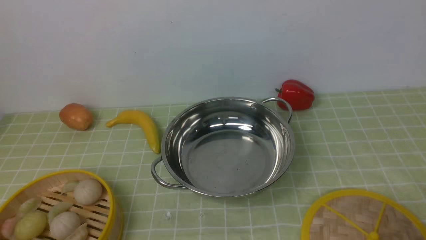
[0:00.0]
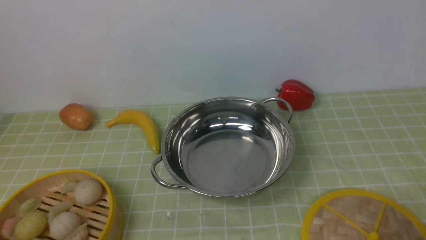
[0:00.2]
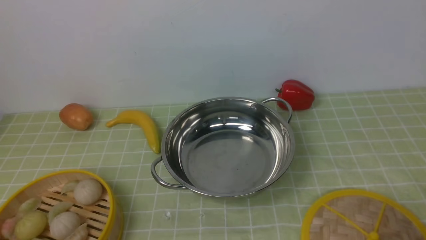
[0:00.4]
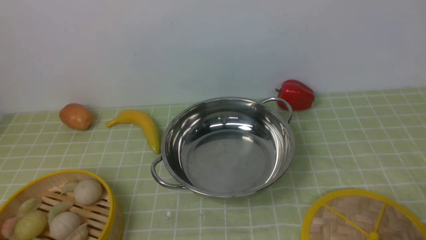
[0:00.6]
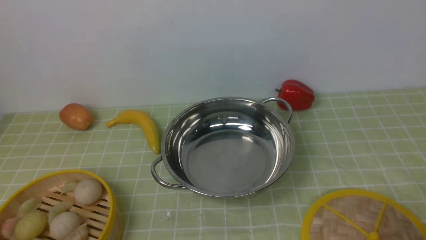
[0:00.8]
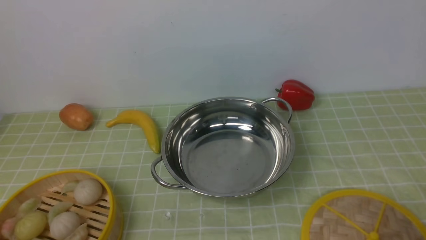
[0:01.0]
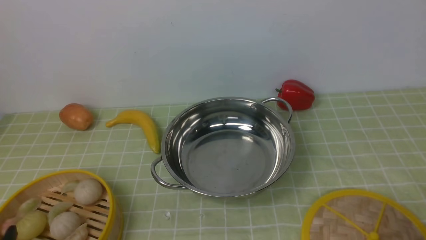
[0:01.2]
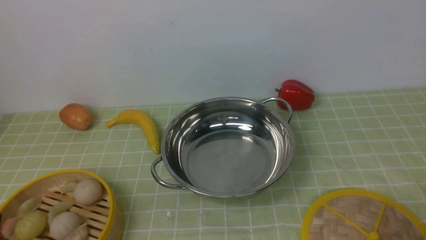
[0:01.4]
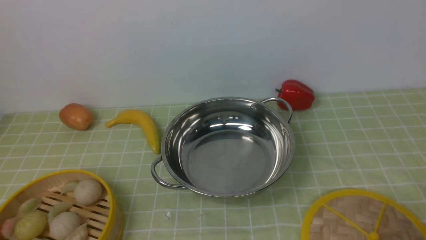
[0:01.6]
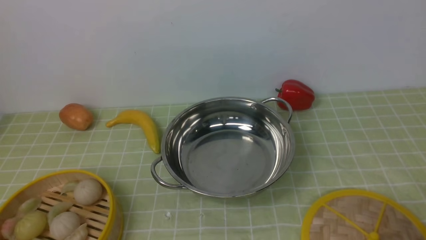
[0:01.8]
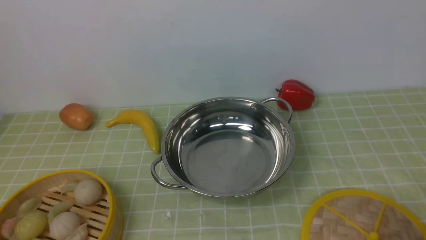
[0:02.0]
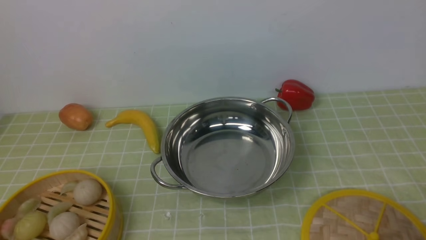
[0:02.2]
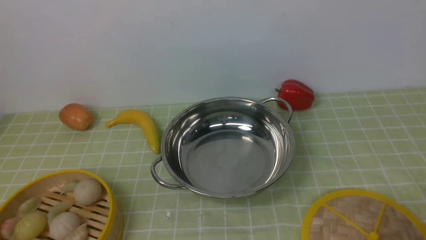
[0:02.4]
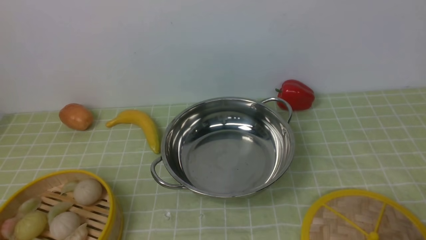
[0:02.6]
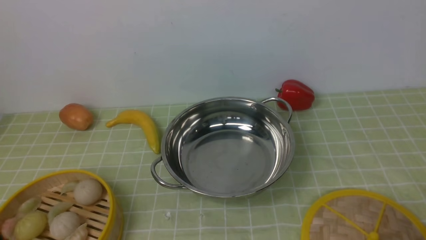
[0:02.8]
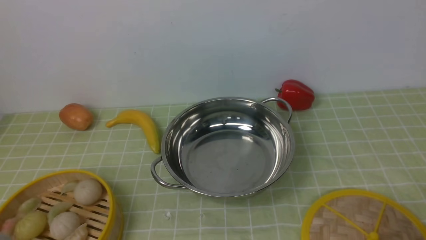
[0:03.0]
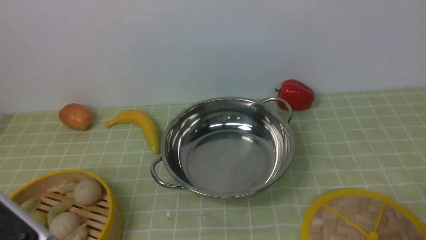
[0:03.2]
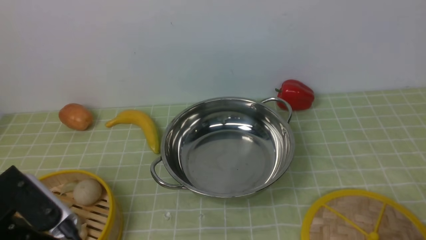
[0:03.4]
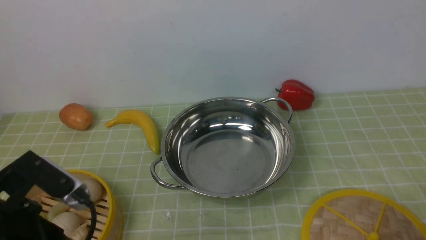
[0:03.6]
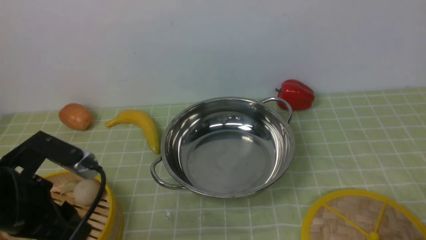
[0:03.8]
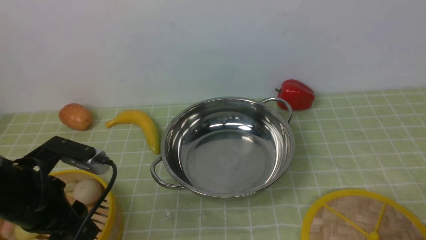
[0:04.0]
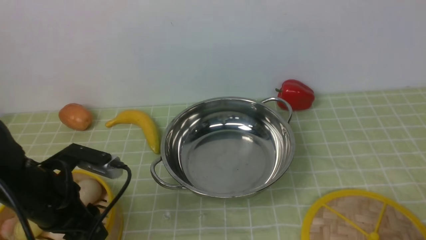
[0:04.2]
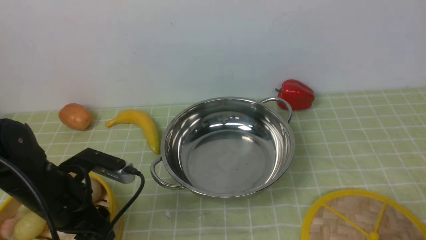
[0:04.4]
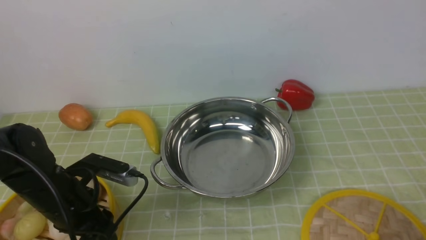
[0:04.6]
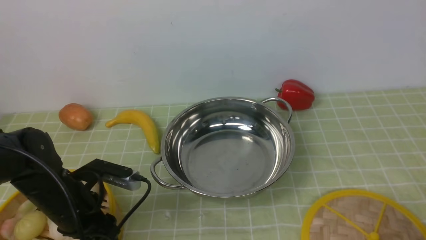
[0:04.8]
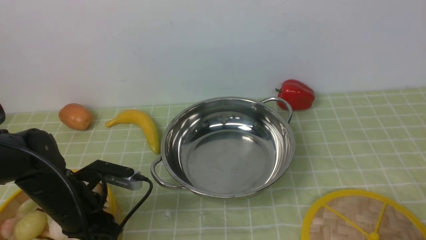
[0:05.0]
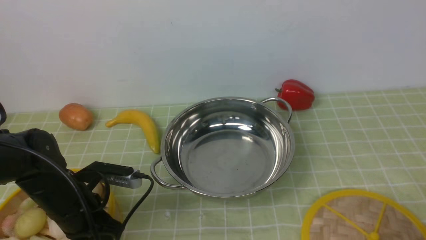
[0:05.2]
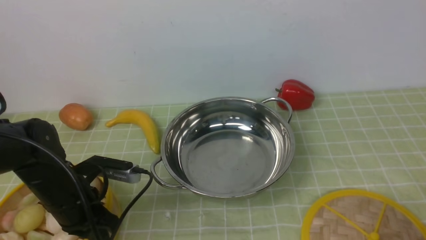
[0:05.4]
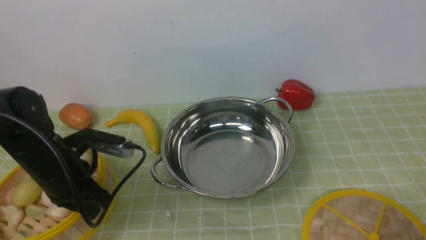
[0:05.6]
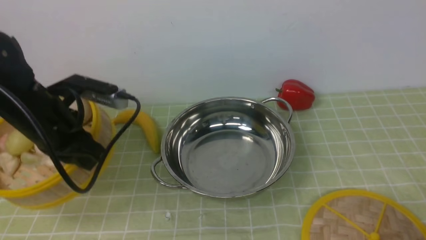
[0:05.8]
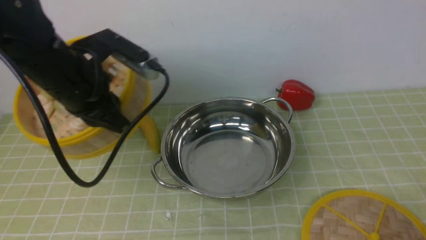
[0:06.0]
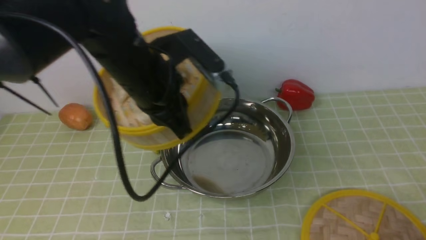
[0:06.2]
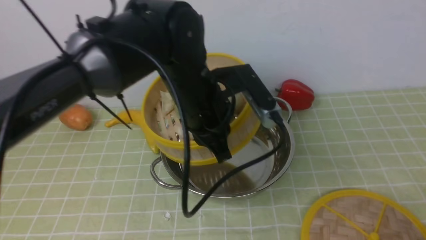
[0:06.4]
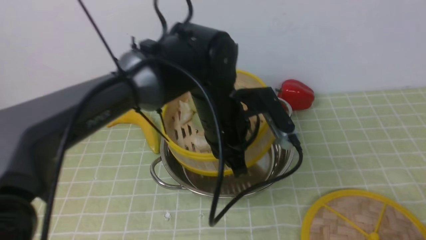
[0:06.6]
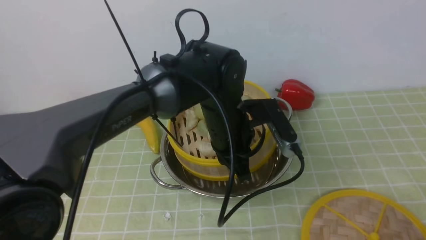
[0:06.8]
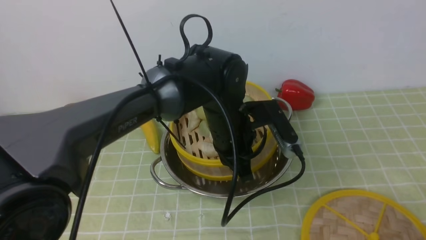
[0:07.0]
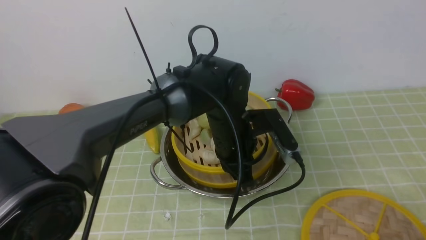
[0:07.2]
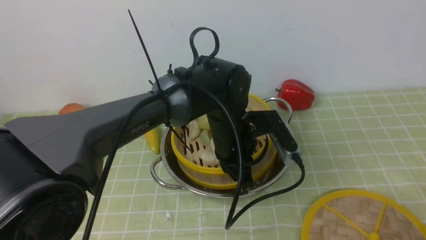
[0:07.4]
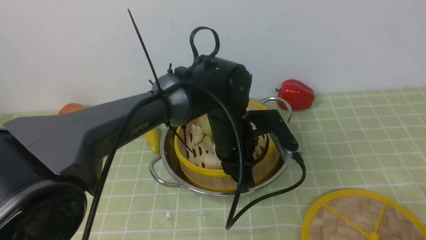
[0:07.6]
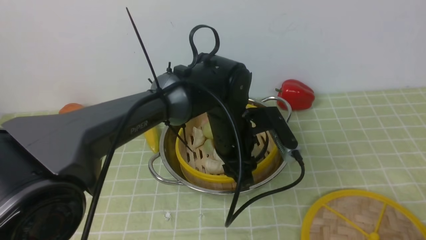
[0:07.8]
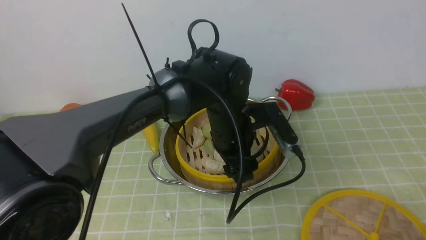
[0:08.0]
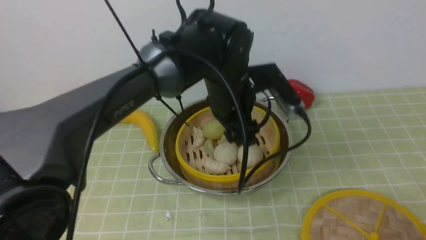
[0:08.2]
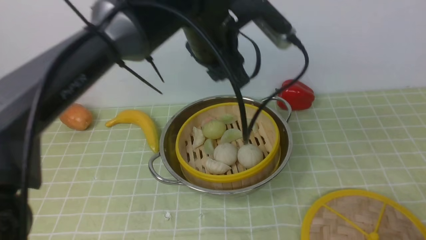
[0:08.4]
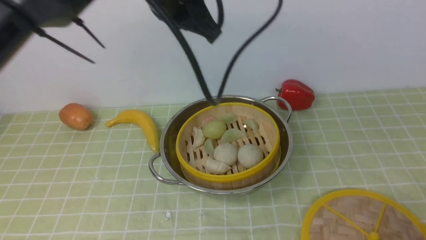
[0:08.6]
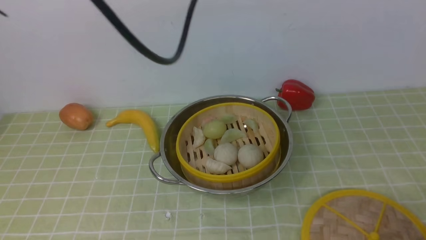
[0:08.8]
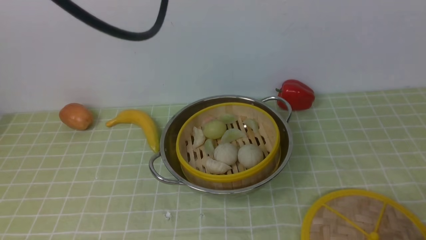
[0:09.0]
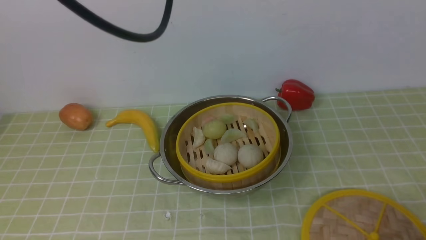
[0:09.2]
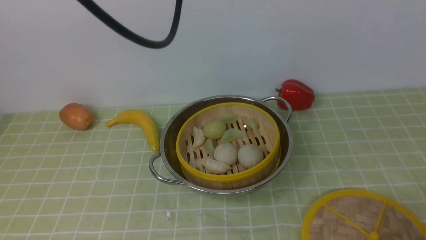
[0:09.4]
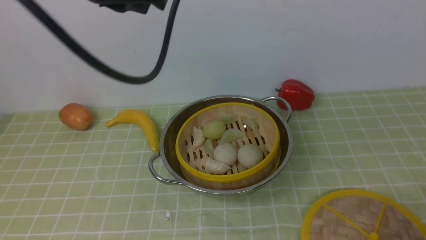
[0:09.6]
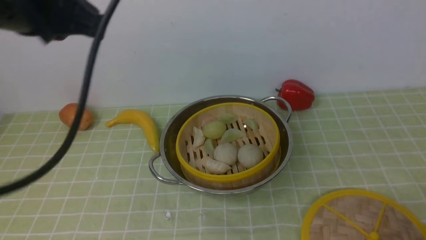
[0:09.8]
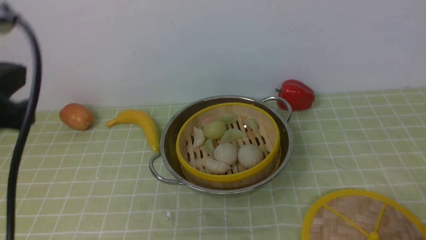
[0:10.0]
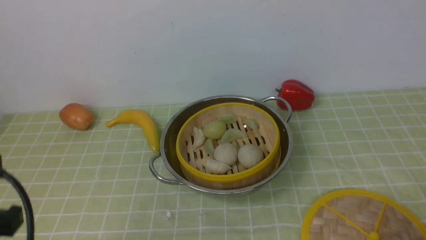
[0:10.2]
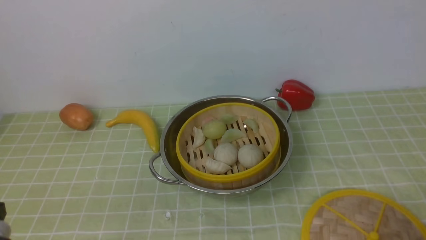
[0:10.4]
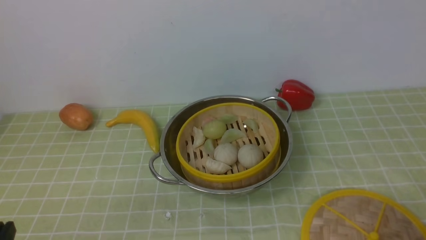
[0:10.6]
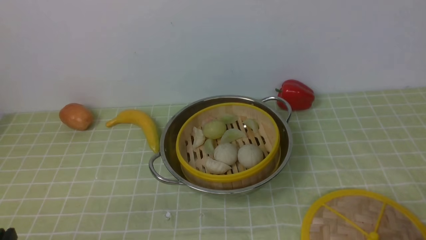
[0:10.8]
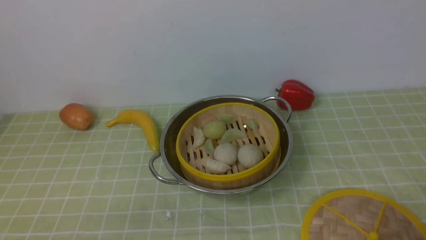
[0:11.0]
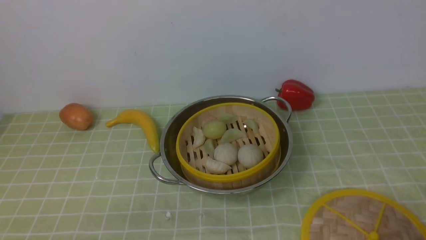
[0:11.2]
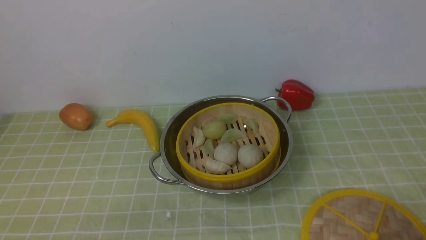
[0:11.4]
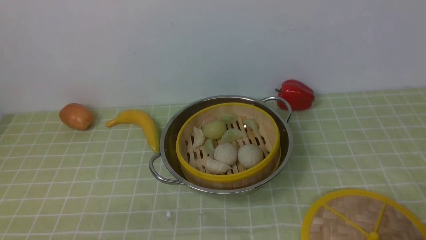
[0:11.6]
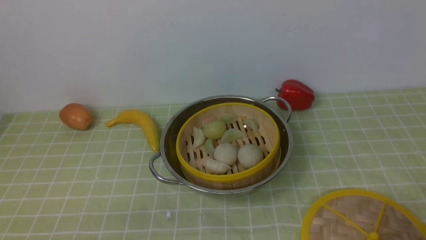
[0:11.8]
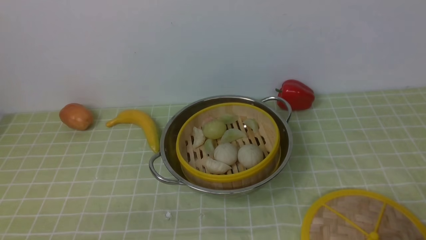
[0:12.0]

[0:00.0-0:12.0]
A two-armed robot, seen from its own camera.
Task of the whole recording: place the steamer in the pot on the green tablecloth, and put the lid on the steamer.
Step, 0:00.0 to 0:05.8: use the left arm to lift the steamer closest to it.
Step, 0:06.0 to 0:08.4: use the left arm to put the steamer into the iron steamer pot in the middle.
0:03.0 to 0:04.4: The left gripper is displaced forward and downward by approximately 20 cm, and opens up.
0:04.4 to 0:06.0: The left gripper heads upward, forward and to the right, covering approximately 15 cm, and closes up.
0:06.0 to 0:07.6: The left gripper heads to the right and downward, covering roughly 20 cm, and opens.
0:07.6 to 0:09.0: The left gripper moves upward and to the left, some 30 cm, and closes up.
0:09.0 to 0:10.4: The left gripper heads downward, backward and to the left, covering approximately 35 cm.

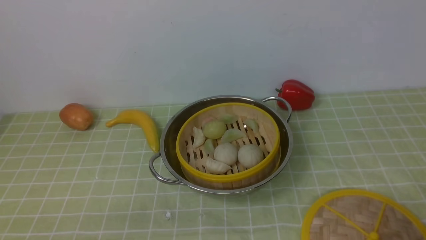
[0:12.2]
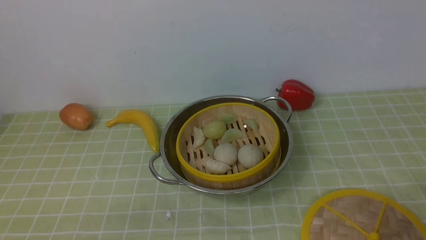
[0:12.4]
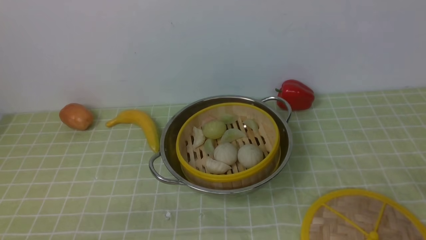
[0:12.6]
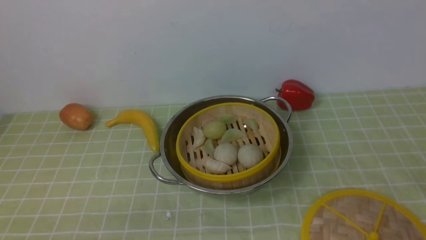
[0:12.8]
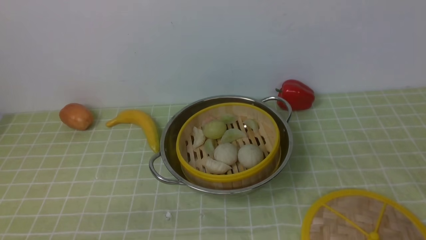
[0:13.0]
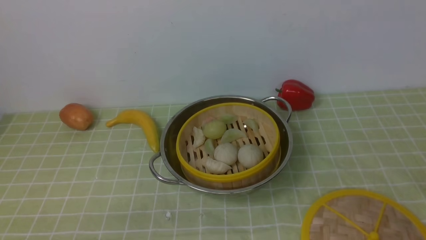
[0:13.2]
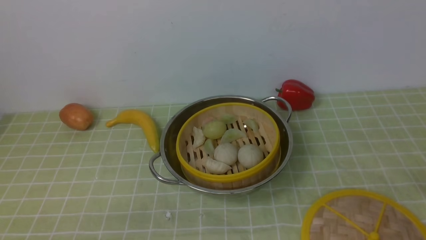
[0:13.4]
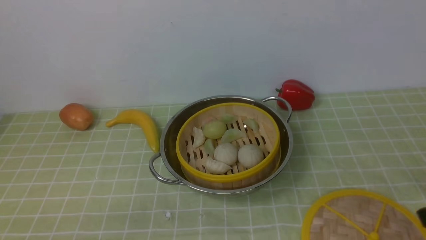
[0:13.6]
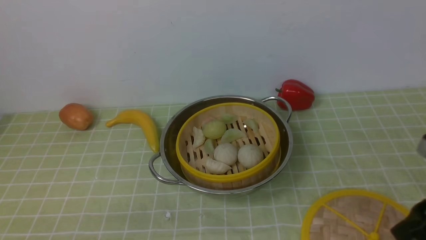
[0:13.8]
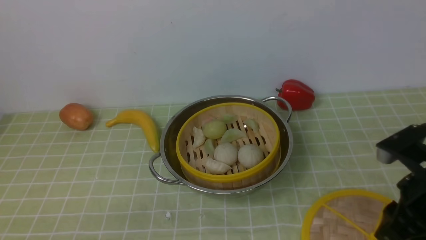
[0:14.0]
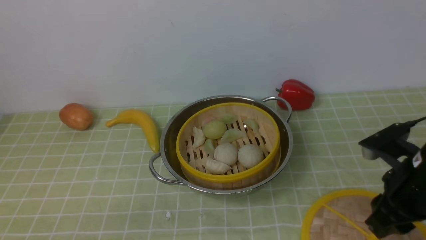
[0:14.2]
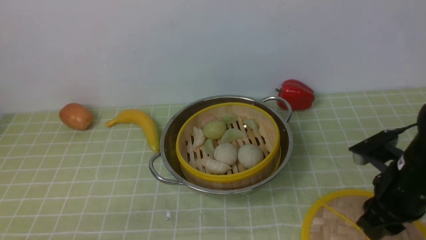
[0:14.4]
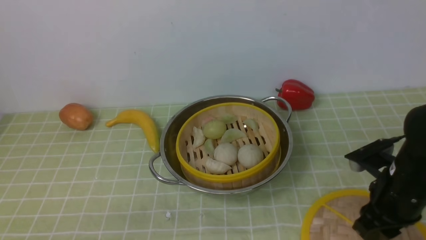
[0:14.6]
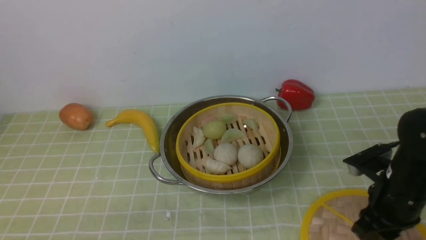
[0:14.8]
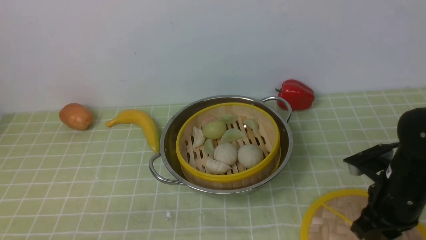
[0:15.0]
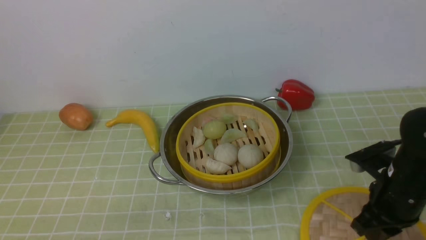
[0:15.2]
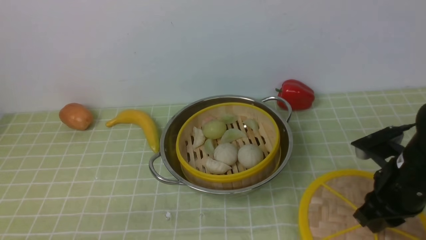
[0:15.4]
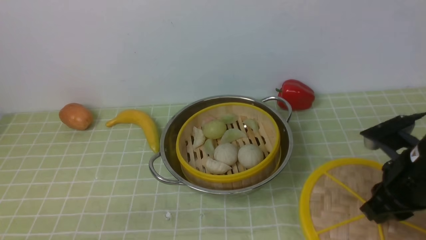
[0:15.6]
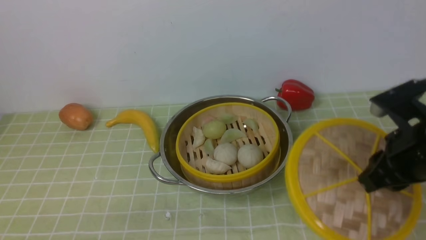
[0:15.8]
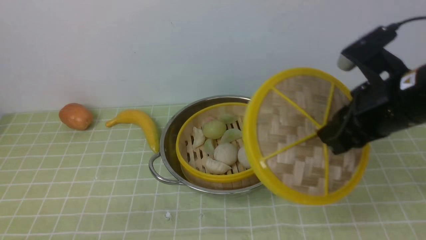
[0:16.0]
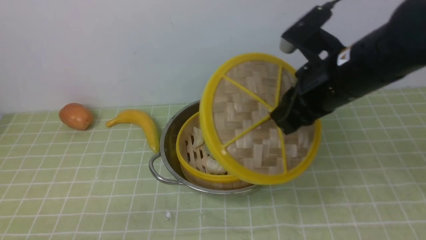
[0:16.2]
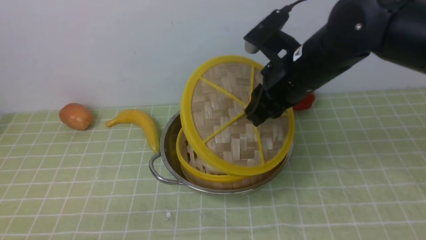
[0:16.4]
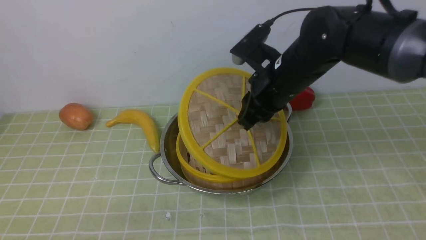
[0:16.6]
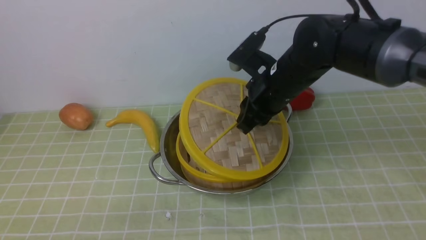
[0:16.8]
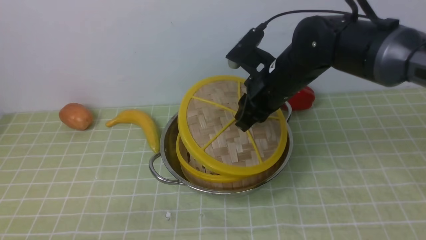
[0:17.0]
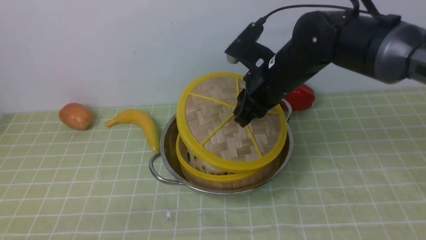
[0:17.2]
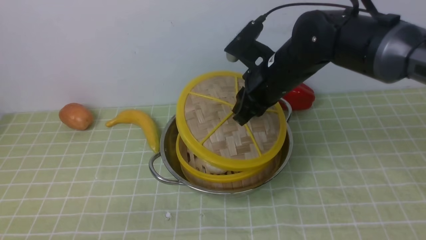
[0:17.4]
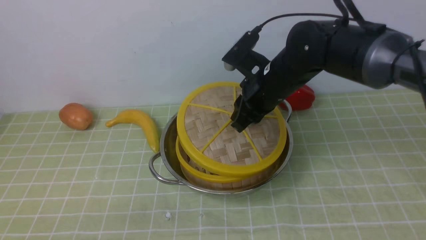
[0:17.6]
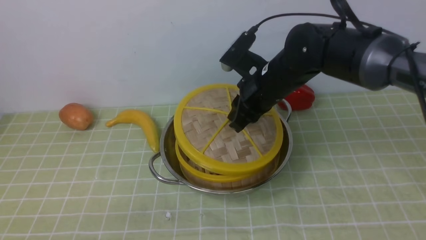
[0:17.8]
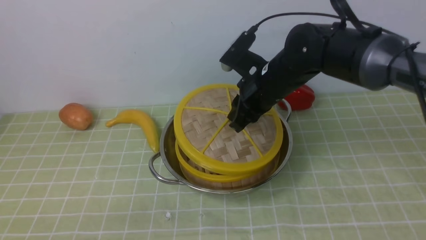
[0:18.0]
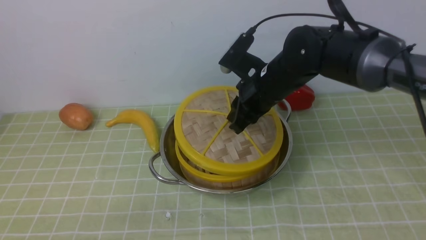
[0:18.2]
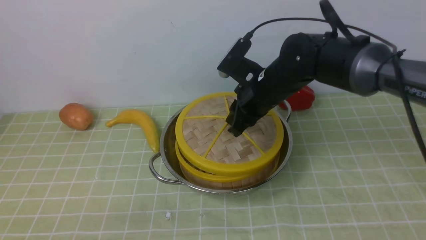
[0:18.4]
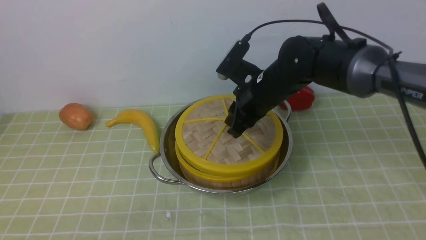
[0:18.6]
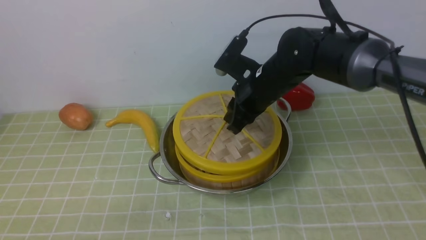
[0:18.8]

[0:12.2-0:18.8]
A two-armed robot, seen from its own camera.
Task of the whole recording: place the steamer in the pot on the green tablecloth, and put the lid on the steamer.
Step, 0:12.2 to 0:15.6: use the right arm to lift the lid of the steamer.
0:12.2 to 0:13.8: The right gripper is displaced forward and upward by roughly 15 cm.
0:13.8 to 0:15.4: The right gripper goes roughly 10 cm forward and downward, and closes its fingers.
0:15.4 to 0:17.2: The right gripper travels to the left and forward by approximately 20 cm.
0:17.2 to 0:18.8: The grippers make only small movements.
